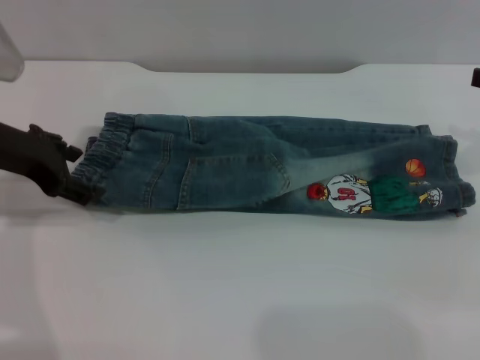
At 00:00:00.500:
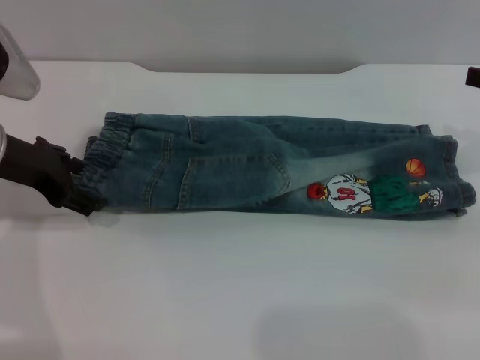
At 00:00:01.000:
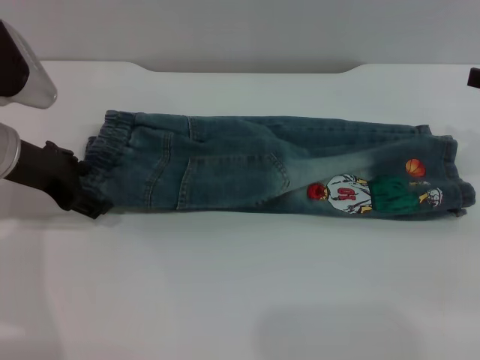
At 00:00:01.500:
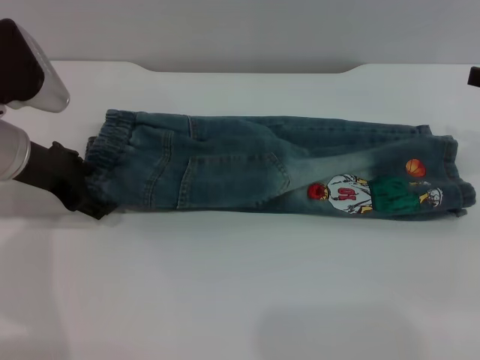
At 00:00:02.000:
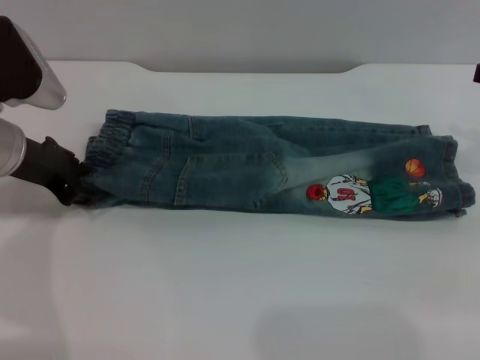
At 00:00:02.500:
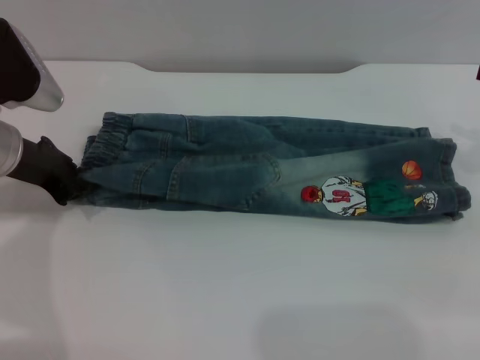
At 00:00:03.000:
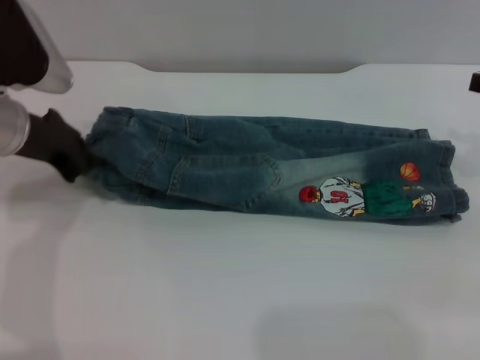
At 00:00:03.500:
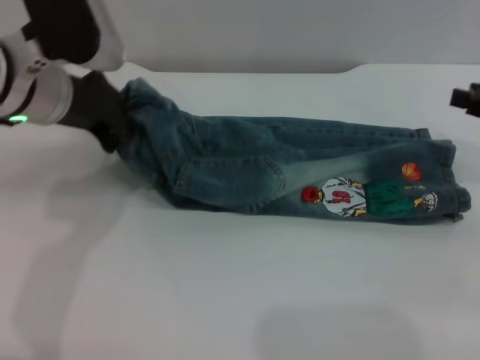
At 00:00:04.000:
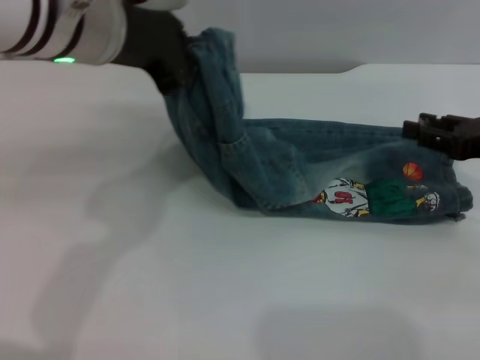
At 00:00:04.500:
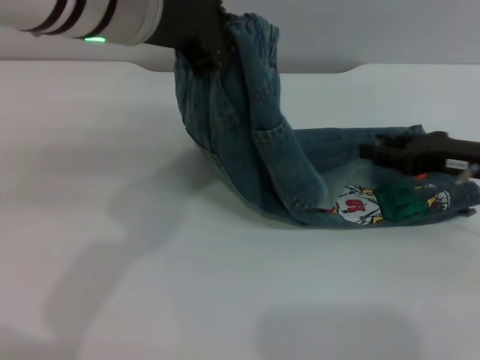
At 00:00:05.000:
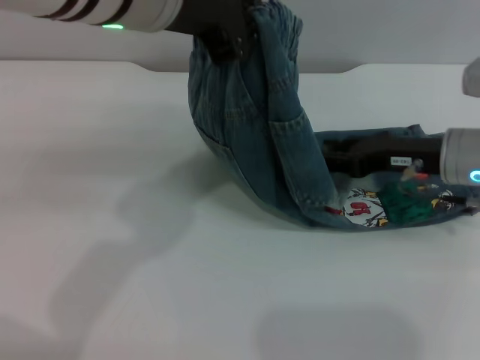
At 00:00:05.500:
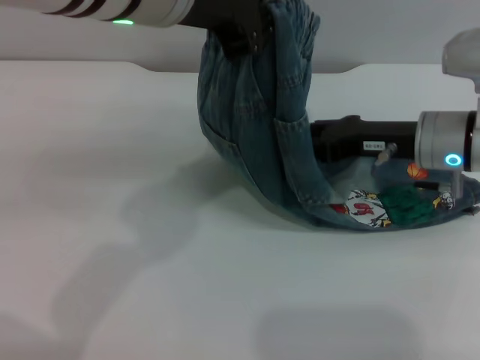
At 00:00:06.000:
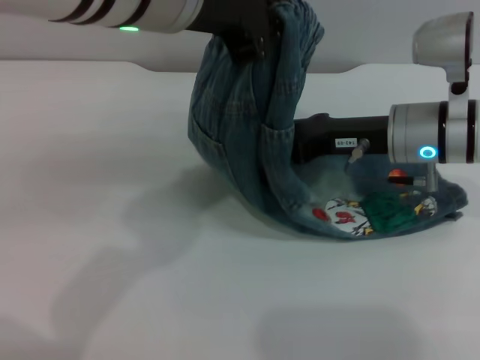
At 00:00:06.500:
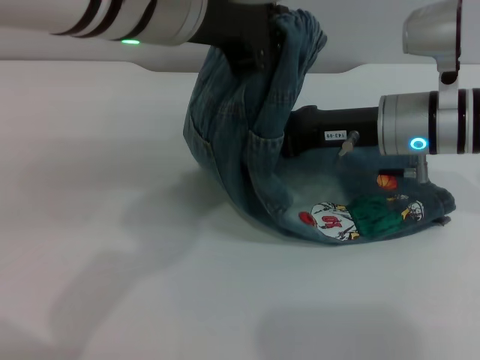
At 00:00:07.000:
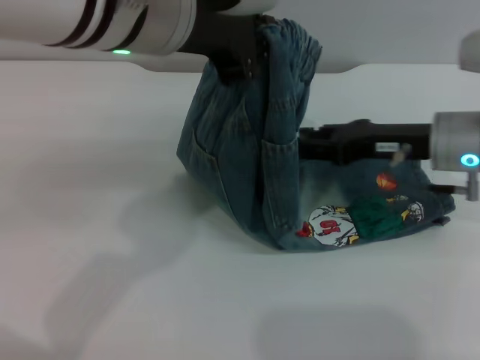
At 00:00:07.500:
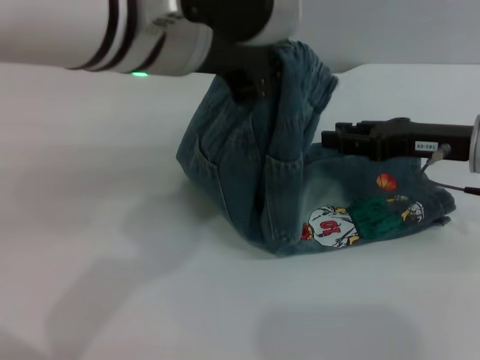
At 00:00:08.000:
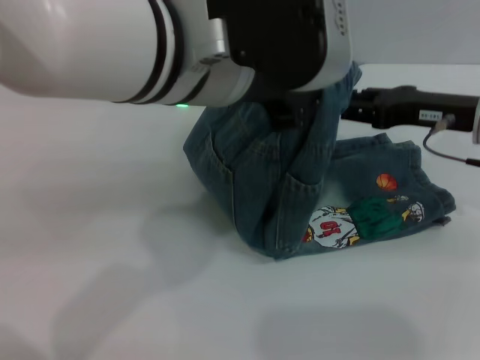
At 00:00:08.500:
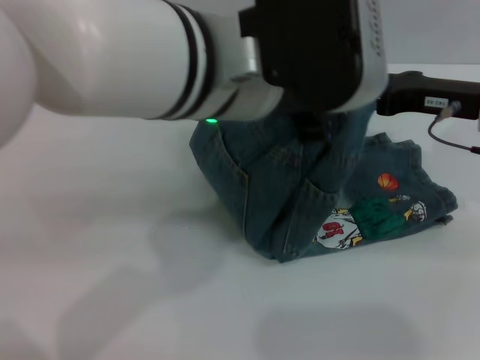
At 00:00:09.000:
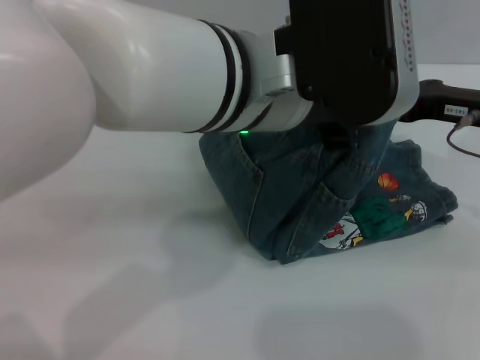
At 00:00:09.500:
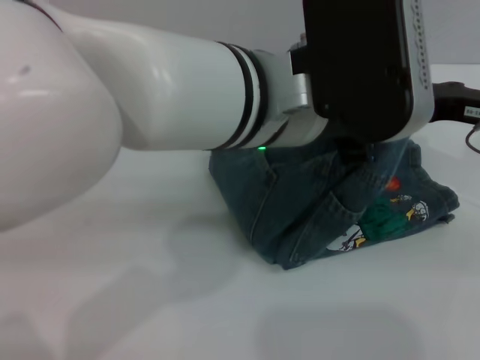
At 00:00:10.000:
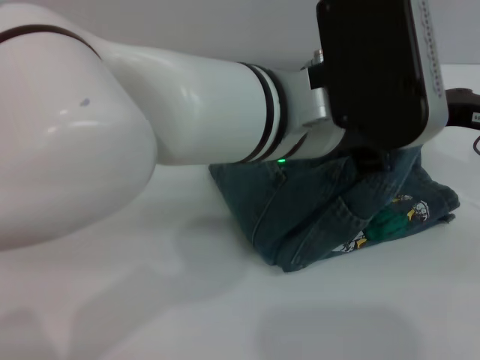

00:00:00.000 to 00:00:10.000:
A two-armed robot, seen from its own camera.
00:00:00.000 to 00:00:02.000: There are only small adjustments of the grippers.
00:00:02.000 to 00:00:04.000: The left gripper moves upward and to the right, roughly 20 cm, and closes. The right gripper is displaced downward by about 5 cm.
00:00:04.000 to 00:00:06.000: The left gripper travels to the right by approximately 5 cm. The right gripper heads to the left, covering about 15 cm.
00:00:06.000 to 00:00:08.000: The right gripper shifts about 5 cm to the right.
00:00:08.000 to 00:00:10.000: The left gripper shifts about 5 cm to the right.

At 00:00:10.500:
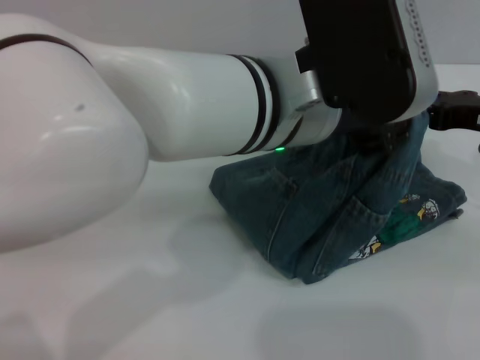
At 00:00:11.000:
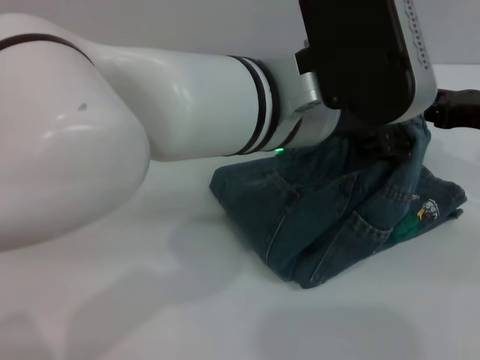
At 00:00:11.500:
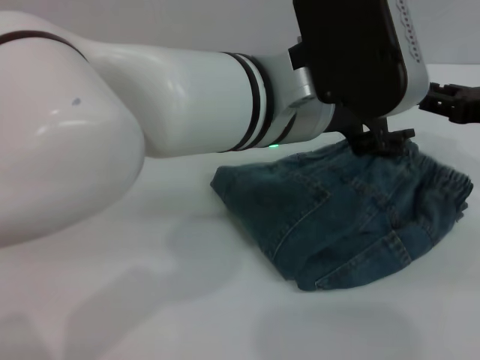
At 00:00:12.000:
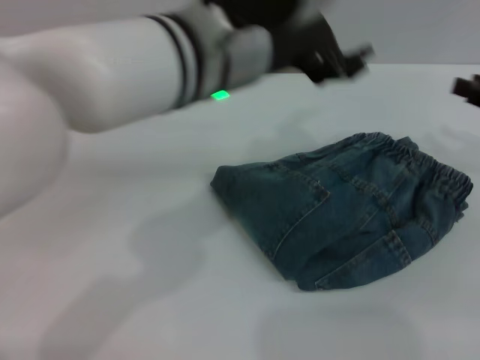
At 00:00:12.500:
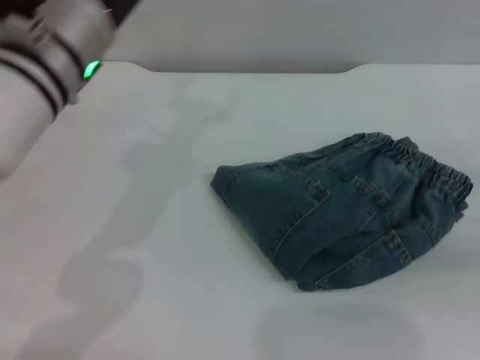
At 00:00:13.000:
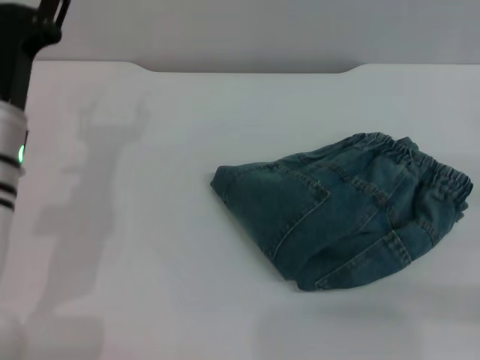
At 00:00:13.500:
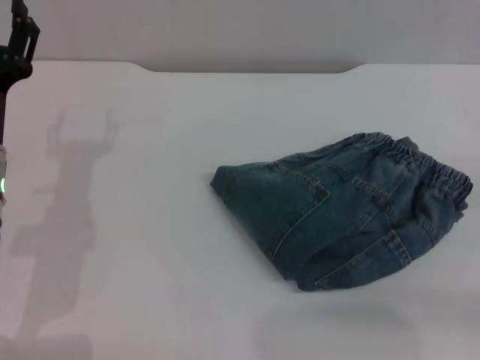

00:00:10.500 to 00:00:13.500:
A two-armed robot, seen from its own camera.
00:00:10.500 to 00:00:12.000: The right gripper travels to the right by some 5 cm. Meanwhile the left gripper opens.
00:00:12.000 to 00:00:13.500: The right gripper is displaced backward and to the right by roughly 15 cm; the left gripper goes some 25 cm to the left and downward.

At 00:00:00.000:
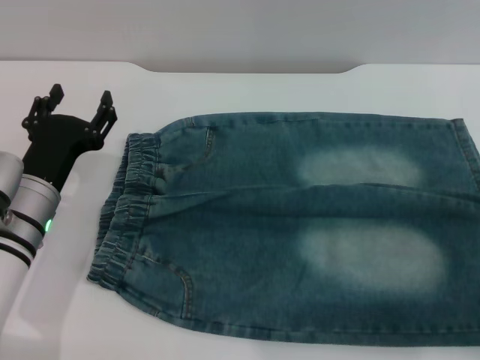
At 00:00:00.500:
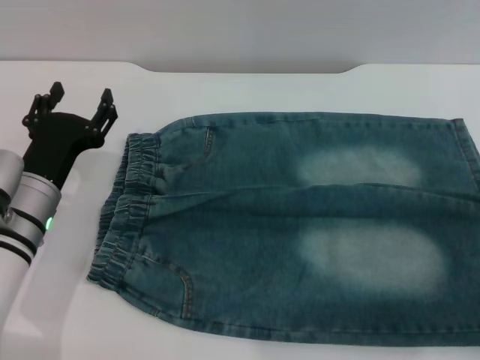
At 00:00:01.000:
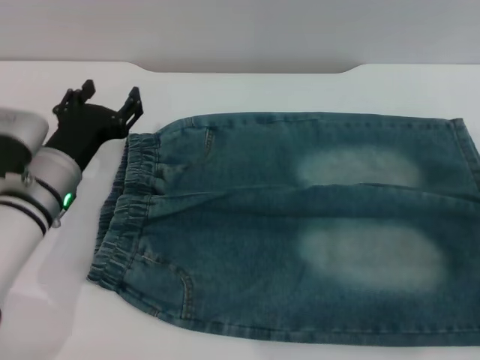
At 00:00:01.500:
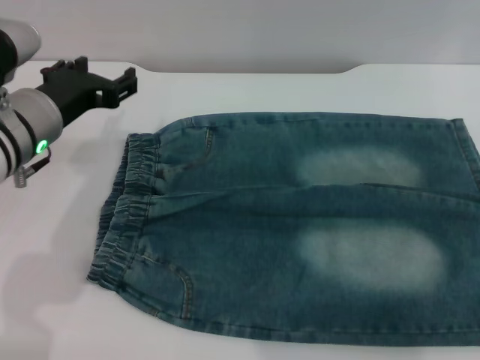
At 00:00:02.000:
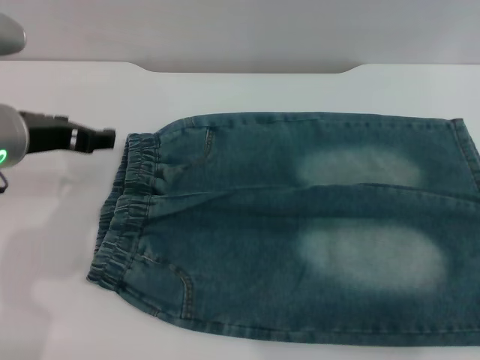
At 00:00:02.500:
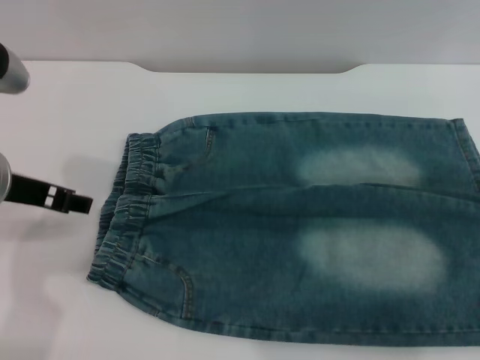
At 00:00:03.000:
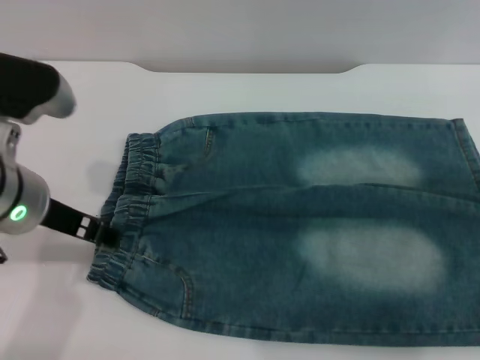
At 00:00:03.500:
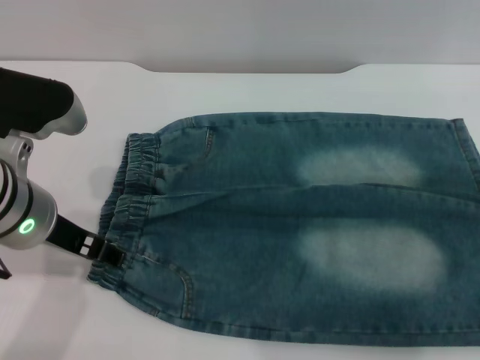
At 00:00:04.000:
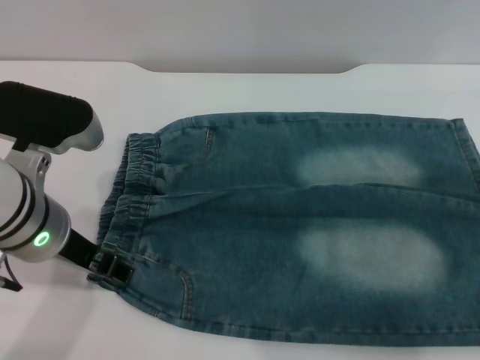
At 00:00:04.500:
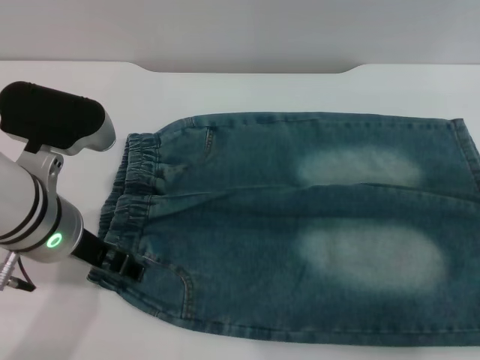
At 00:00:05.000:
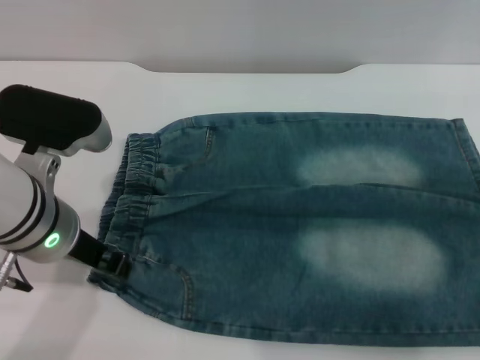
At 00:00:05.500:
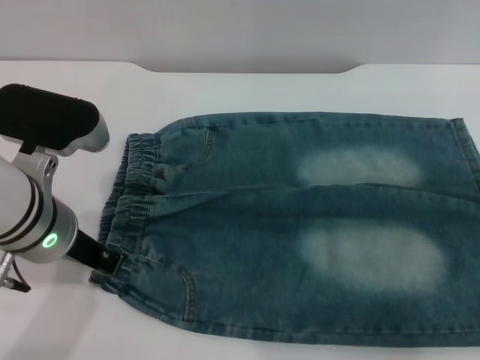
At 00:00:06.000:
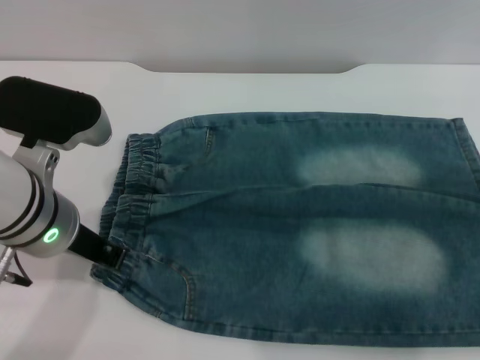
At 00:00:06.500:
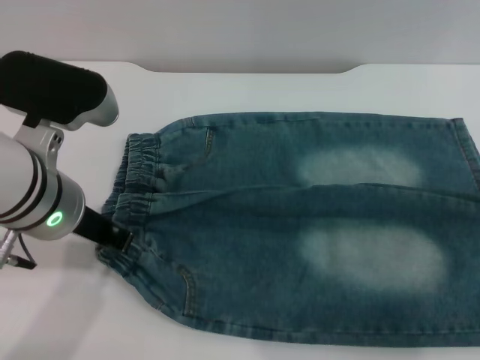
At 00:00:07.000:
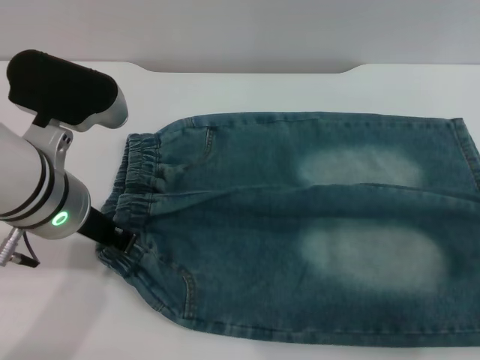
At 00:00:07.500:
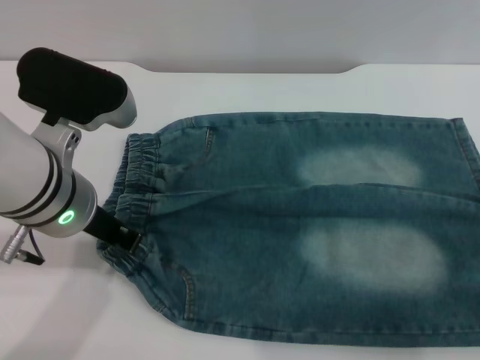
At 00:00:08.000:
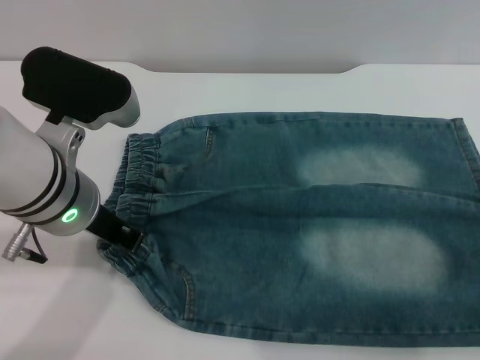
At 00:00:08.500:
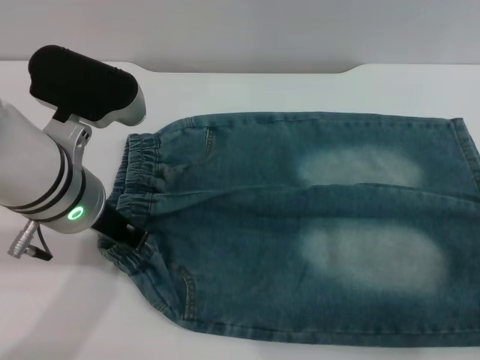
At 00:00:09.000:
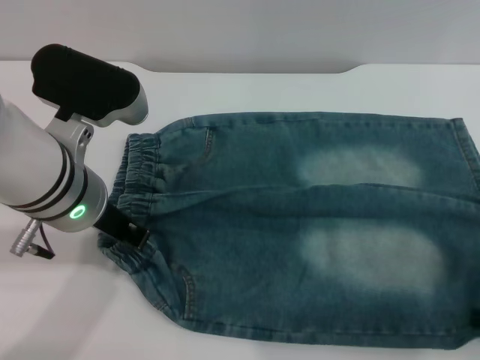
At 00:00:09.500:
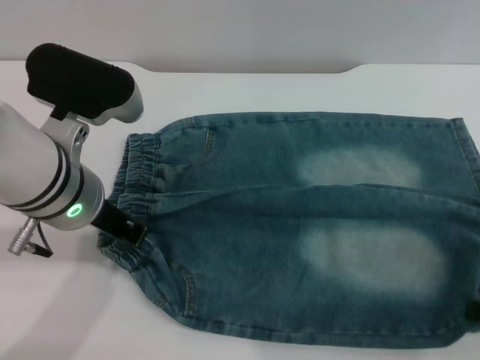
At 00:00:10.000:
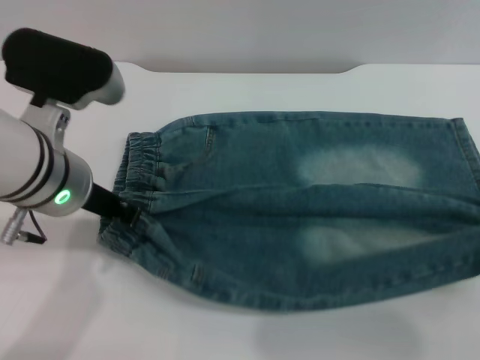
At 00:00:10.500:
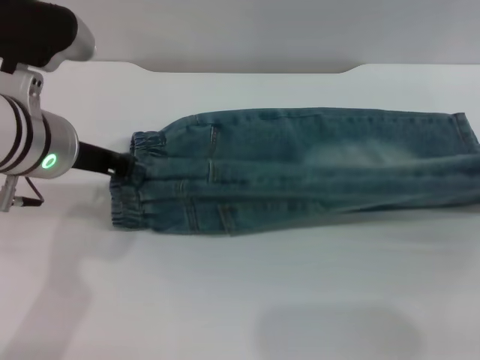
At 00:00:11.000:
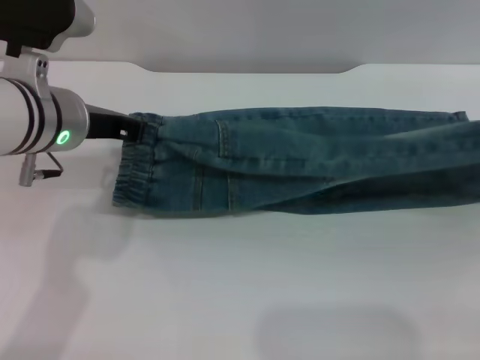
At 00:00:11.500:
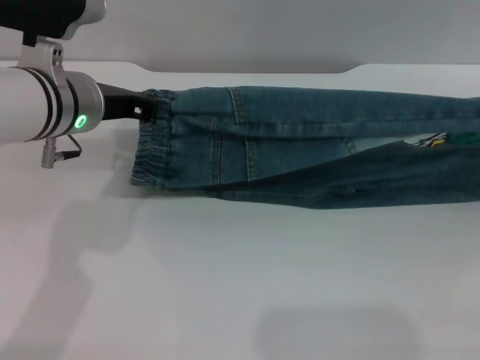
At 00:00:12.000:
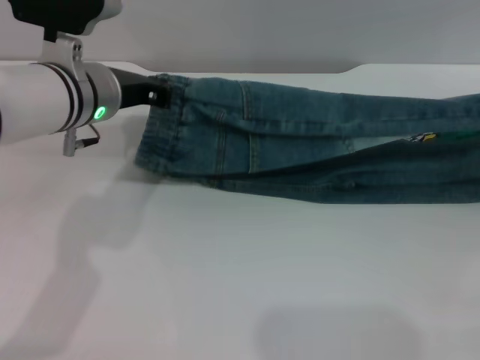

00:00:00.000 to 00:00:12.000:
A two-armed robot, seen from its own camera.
00:00:00.000 to 00:00:02.000: The left gripper travels upward by roughly 15 cm.
00:00:02.000 to 00:00:04.000: The left gripper shifts by about 5 cm.
00:00:04.000 to 00:00:06.000: The left gripper closes up.
00:00:08.000 to 00:00:10.000: The right gripper closes its fingers.
00:00:10.000 to 00:00:12.000: The right gripper is displaced forward and to the right by about 10 cm; the left gripper moves forward, roughly 10 cm.
